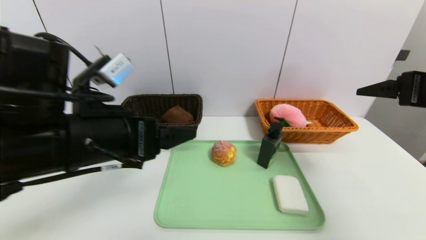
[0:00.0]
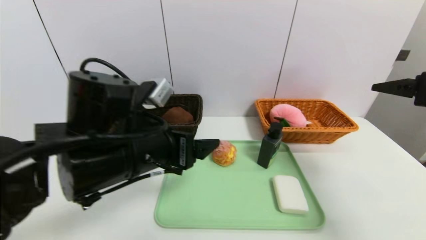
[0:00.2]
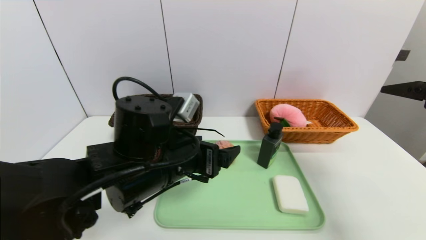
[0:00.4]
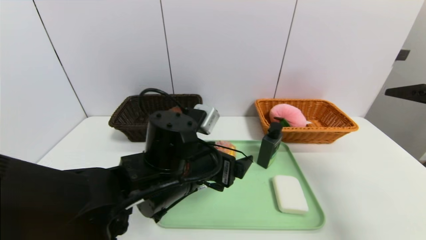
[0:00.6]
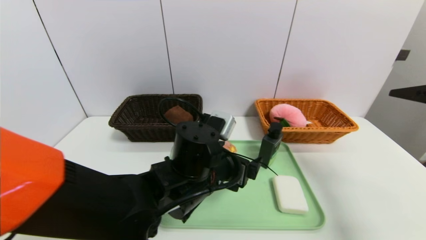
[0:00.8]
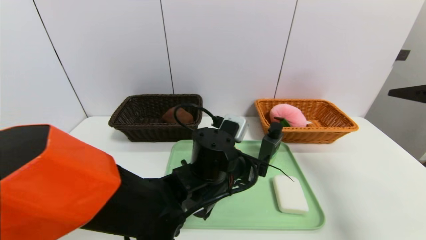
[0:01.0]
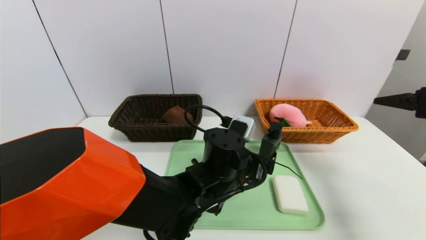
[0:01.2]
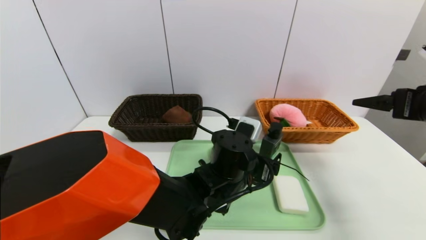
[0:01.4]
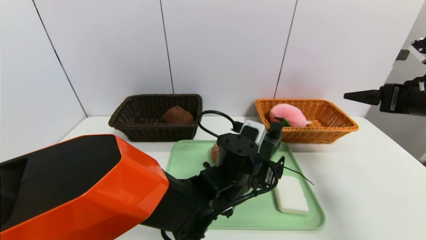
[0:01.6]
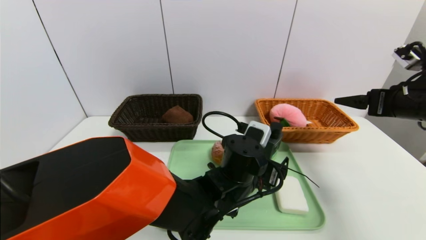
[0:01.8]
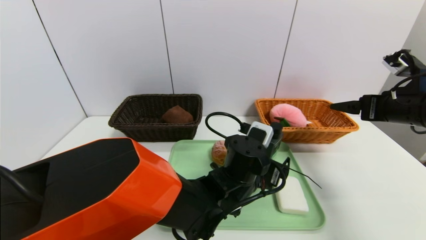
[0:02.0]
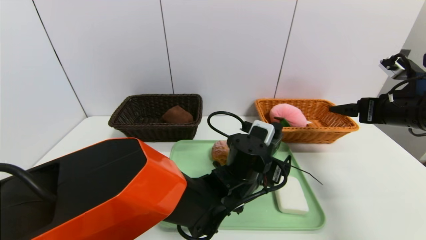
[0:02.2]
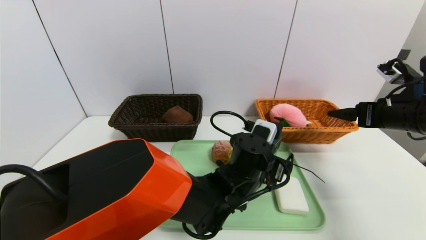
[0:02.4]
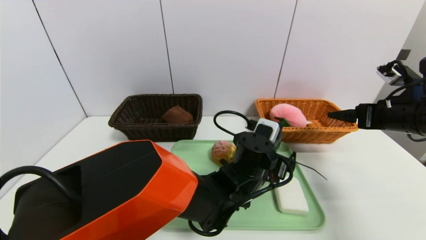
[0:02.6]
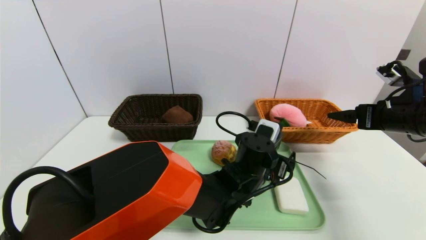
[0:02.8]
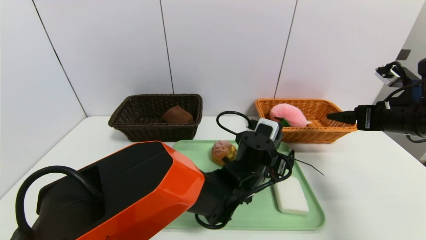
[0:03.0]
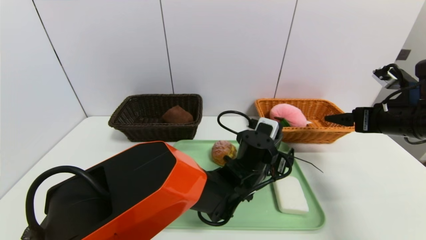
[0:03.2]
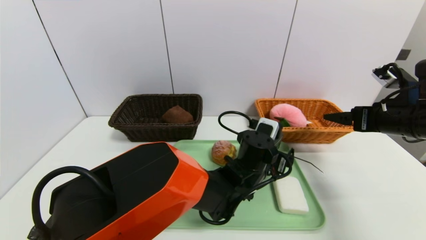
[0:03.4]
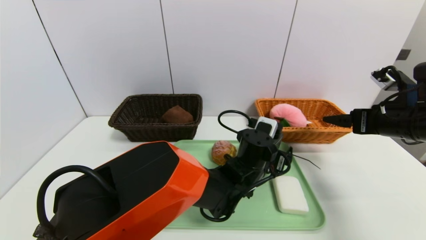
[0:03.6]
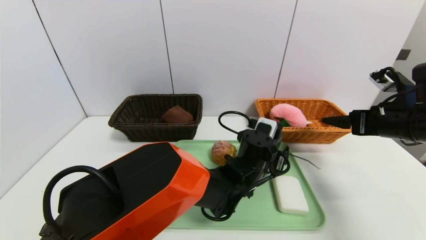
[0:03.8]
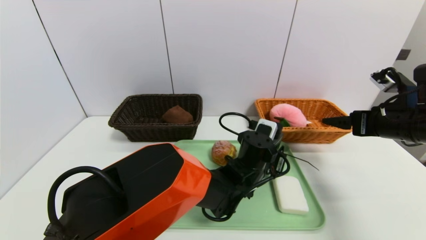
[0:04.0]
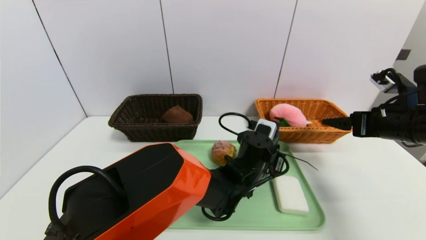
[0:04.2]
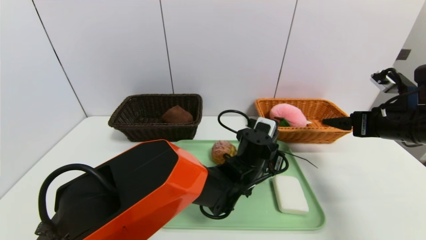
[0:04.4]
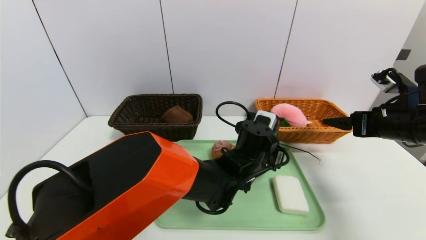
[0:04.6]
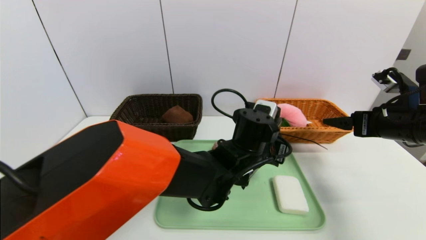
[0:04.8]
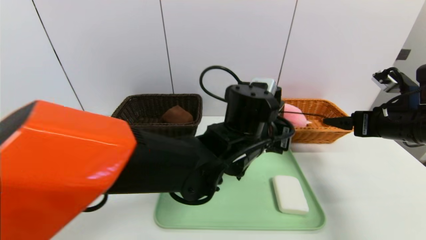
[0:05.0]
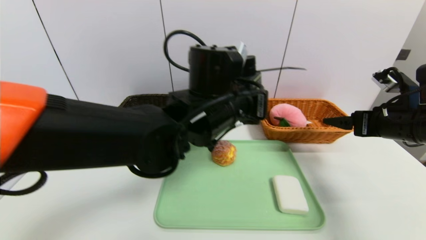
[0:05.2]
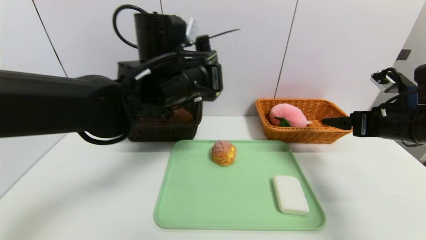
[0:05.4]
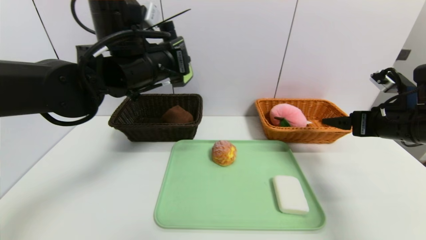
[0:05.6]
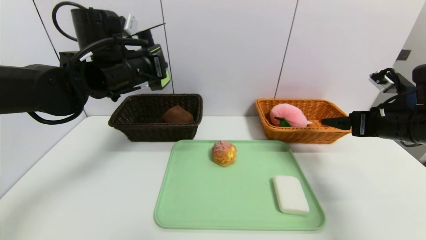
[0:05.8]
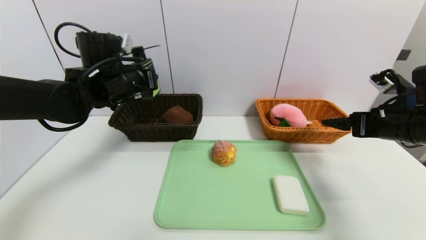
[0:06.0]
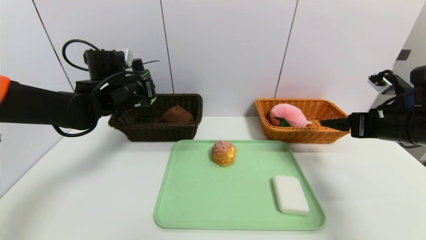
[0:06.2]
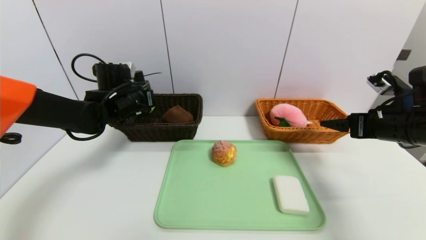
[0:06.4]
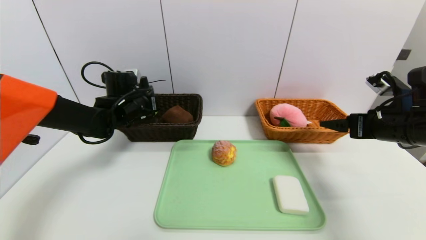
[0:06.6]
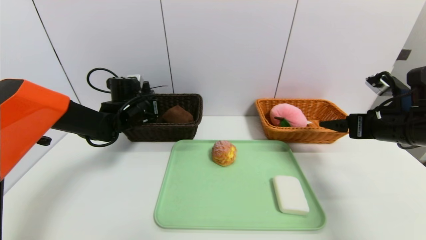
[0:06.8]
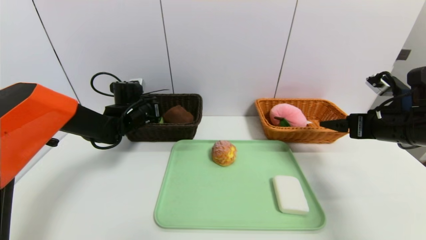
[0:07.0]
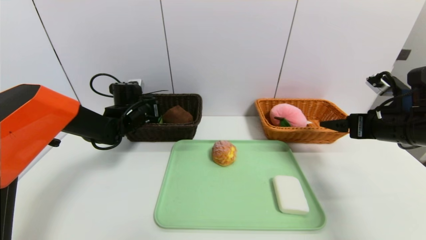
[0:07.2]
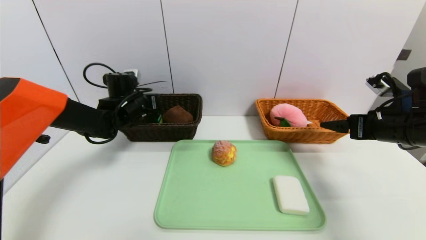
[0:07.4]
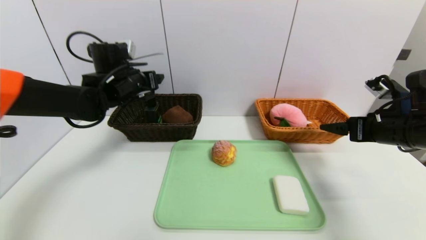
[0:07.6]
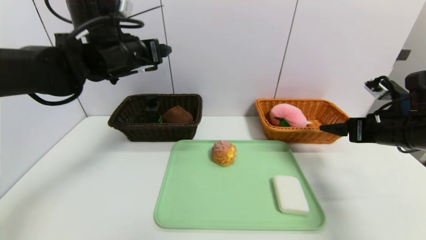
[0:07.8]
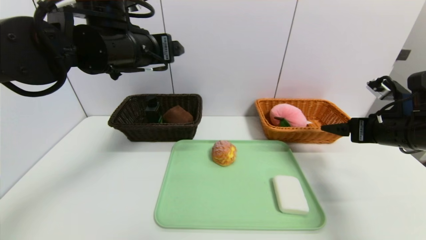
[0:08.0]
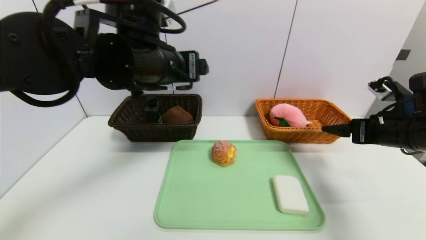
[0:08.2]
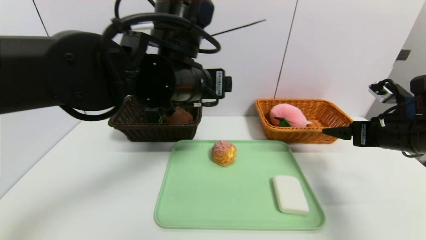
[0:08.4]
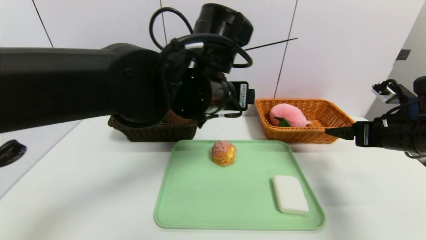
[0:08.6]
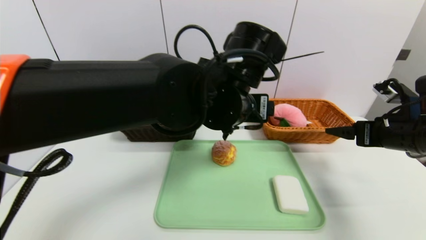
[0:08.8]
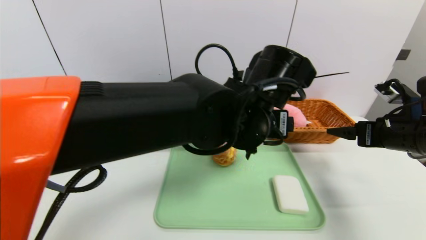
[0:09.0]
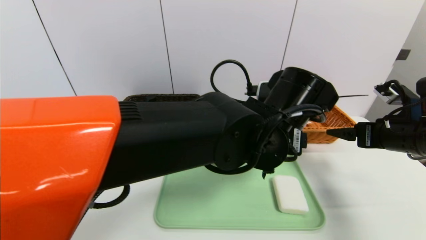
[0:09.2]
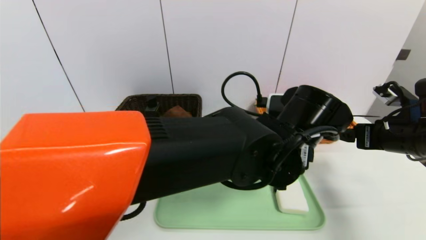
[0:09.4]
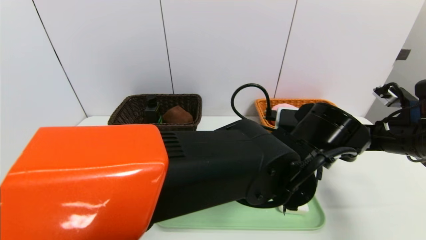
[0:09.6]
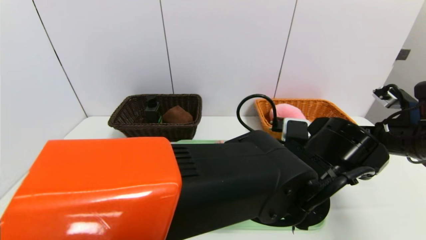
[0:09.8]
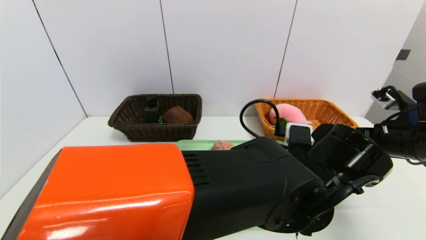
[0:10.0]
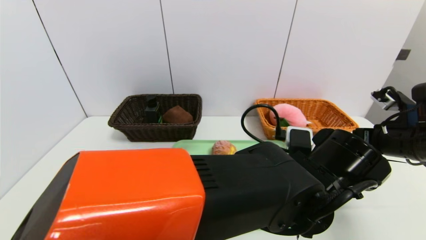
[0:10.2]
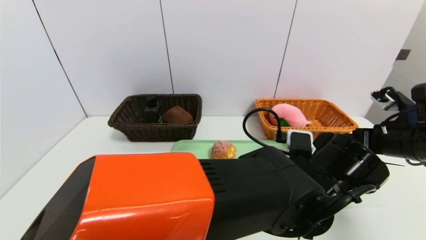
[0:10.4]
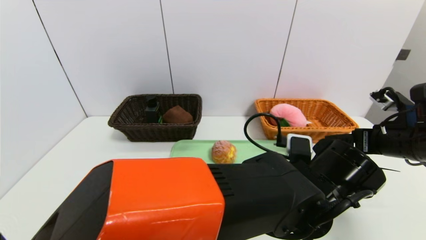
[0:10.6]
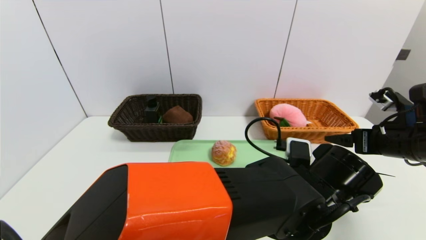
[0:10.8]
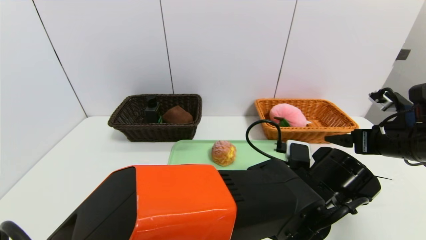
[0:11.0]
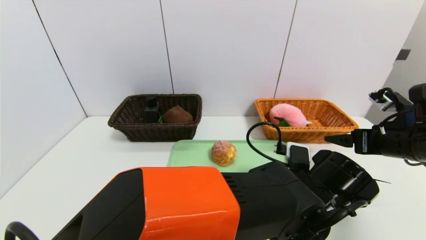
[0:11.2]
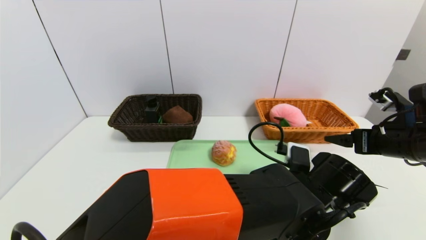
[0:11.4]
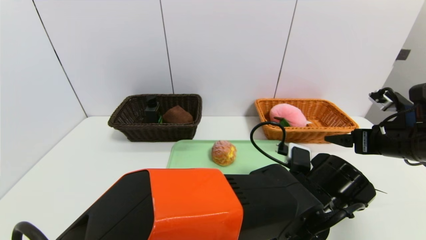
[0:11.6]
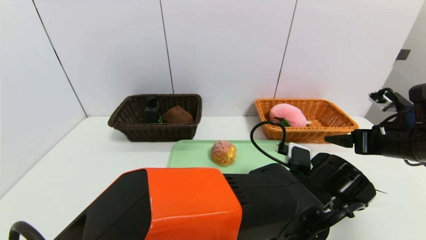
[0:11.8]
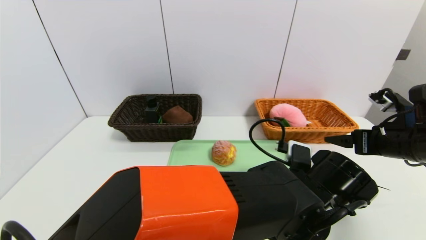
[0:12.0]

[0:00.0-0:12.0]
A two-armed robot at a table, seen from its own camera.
Task of the whole recording: place the food in the right basket with the right gripper, and place the non food items in the left basket with the left gripper.
Step, 0:00.0 to 0:07.6: Grasp the hard cleanser and put it in the left basket.
0:00.0 to 0:01.6: The left gripper is displaced to the right and downward by approximately 25 cm. Meanwhile the right gripper shifts by some 5 cm.
0:01.6 to 0:03.0: The left gripper moves some 5 cm.
0:03.0 to 0:04.4: The left gripper closes up.
0:04.4 to 0:06.0: The left gripper is displaced to the left and upward by roughly 35 cm.
0:06.0 to 0:07.6: The left gripper moves roughly 10 cm downward and comes back, and opens its fingers.
0:07.6 to 0:09.0: The left gripper is displaced to the right and backward by approximately 30 cm.
0:09.0 to 0:10.4: The left gripper goes roughly 10 cm downward, to the right and backward.
0:10.4 to 0:12.0: The grippers stay close to where they were, moving slightly.

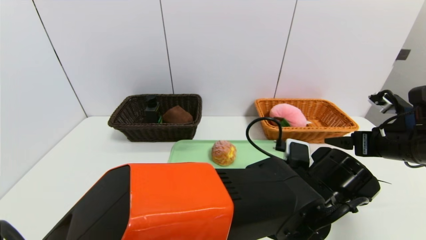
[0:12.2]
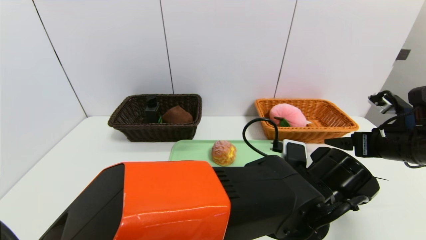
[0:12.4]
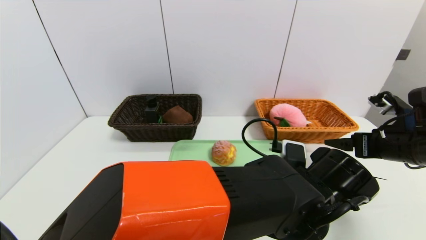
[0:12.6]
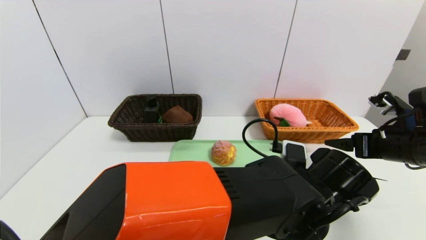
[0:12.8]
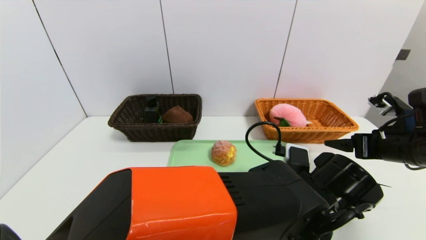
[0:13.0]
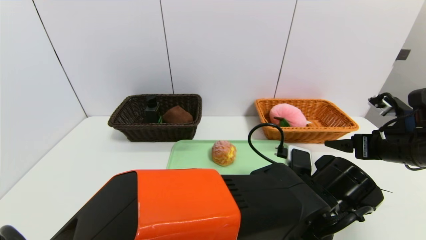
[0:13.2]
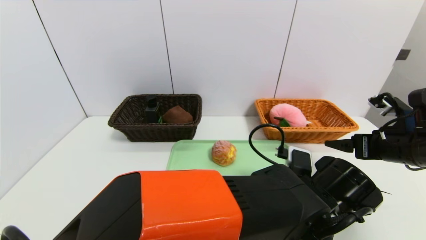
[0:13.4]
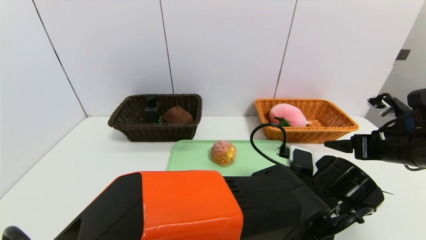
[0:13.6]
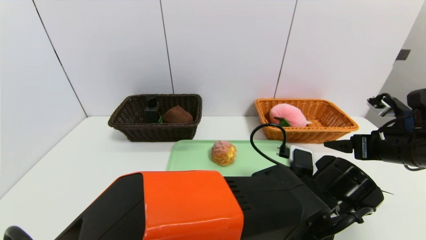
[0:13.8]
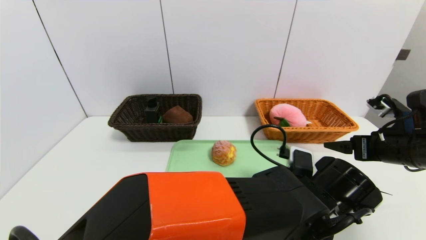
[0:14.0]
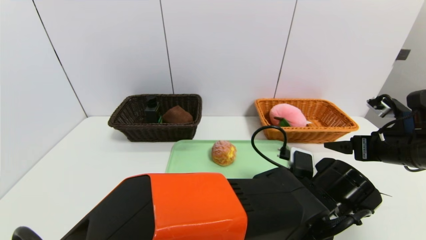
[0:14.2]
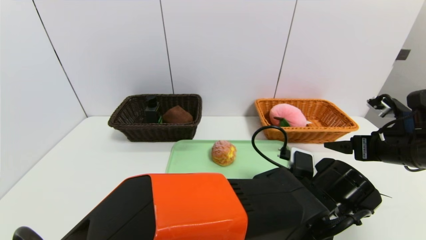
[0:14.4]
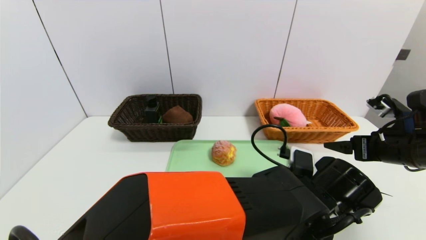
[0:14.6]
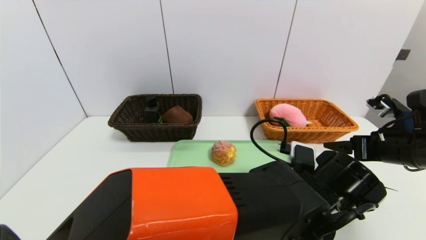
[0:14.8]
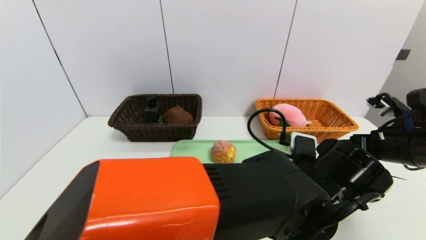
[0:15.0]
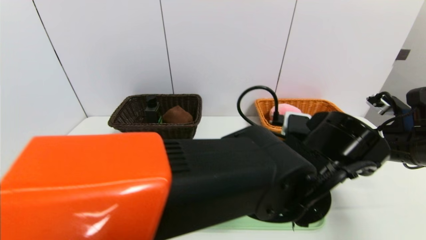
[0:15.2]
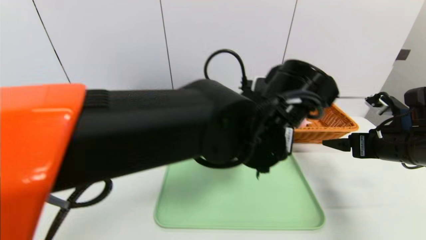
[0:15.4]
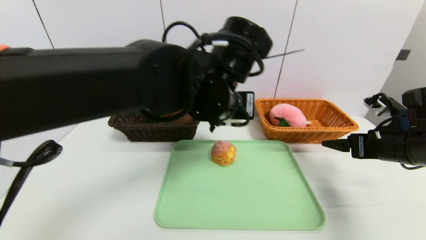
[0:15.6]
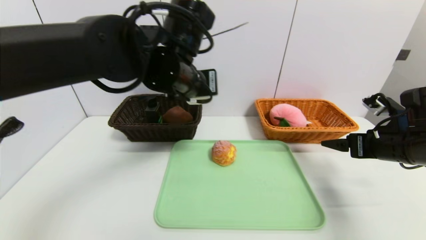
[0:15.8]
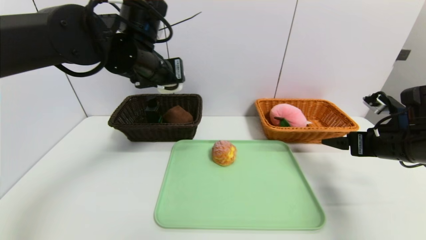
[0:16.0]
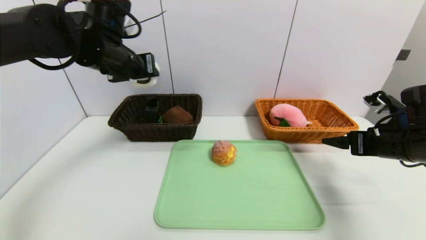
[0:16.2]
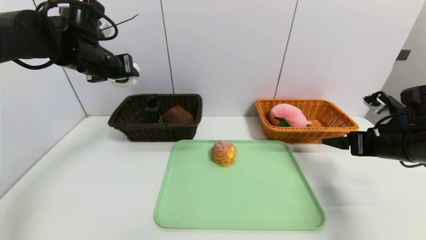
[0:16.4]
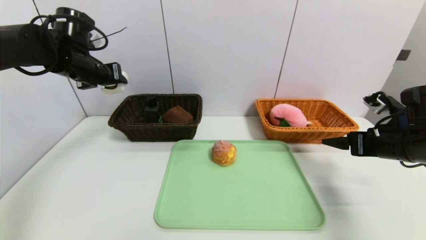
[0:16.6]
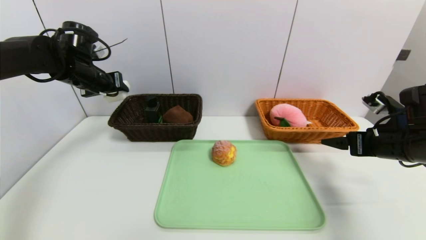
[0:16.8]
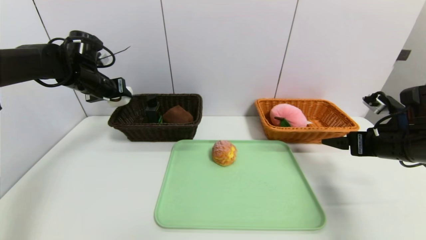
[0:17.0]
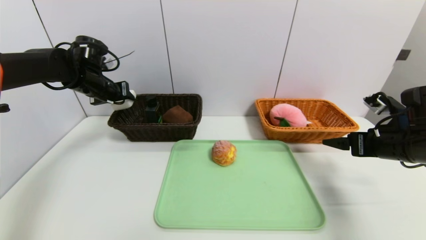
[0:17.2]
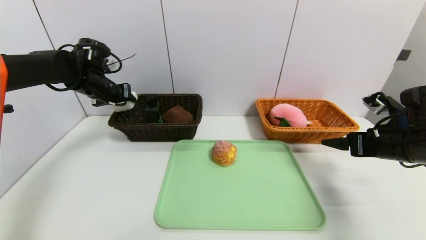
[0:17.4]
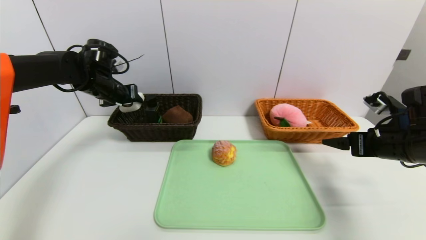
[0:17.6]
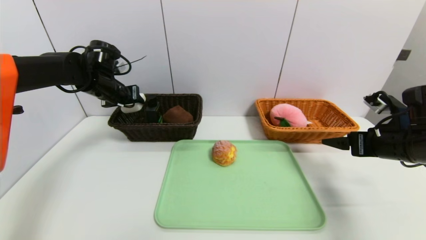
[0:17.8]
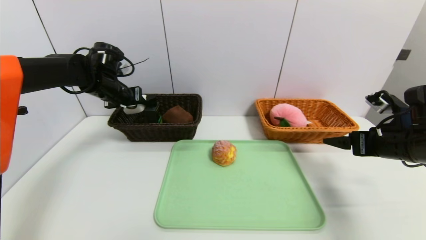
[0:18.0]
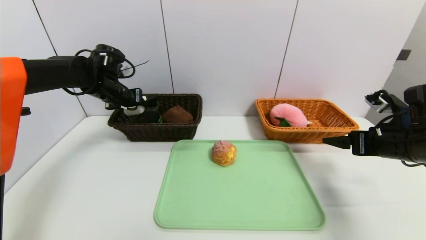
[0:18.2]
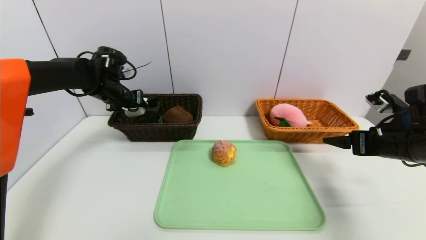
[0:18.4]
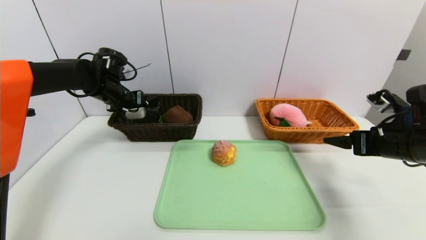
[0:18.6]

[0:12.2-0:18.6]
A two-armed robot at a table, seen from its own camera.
Task of the whole recording: place the food in the right basket with the right gripper, and place the non food items in the left basket with the left gripper.
0:12.2 to 0:13.8: The two grippers keep their place.
0:13.8 to 0:15.4: The left gripper goes roughly 15 cm upward and to the left, and closes its fingers.
0:15.4 to 0:17.0: The left gripper goes approximately 40 cm to the left and forward.
0:17.0 to 0:18.6: The left gripper shifts by roughly 5 cm.
